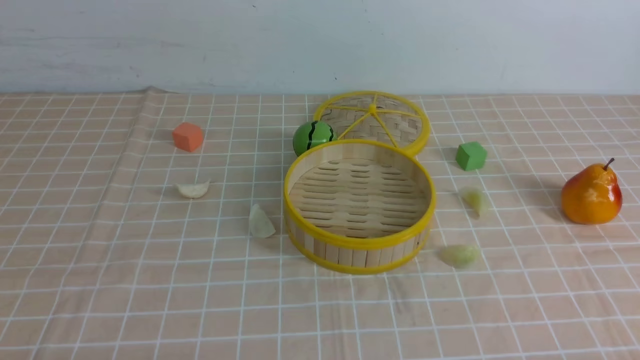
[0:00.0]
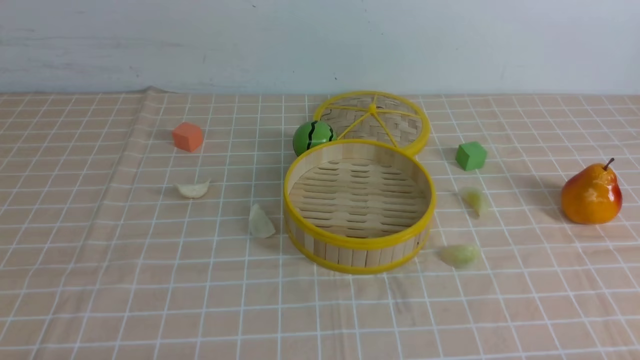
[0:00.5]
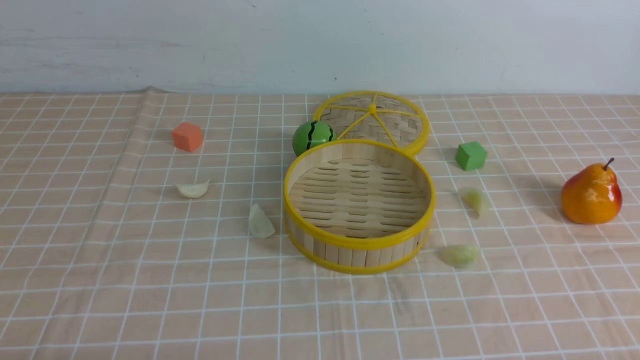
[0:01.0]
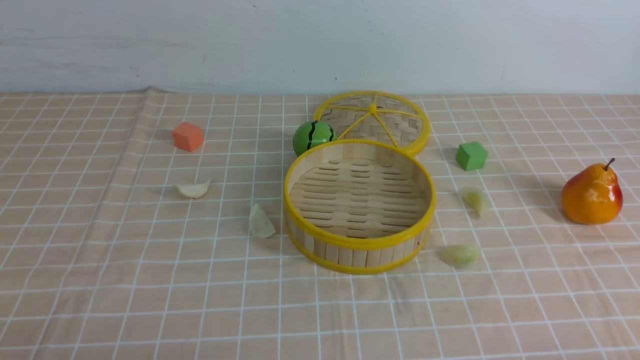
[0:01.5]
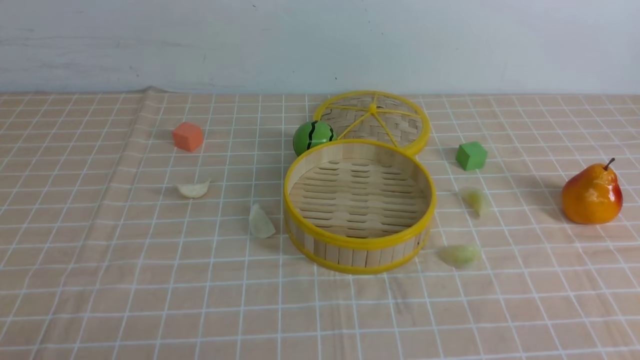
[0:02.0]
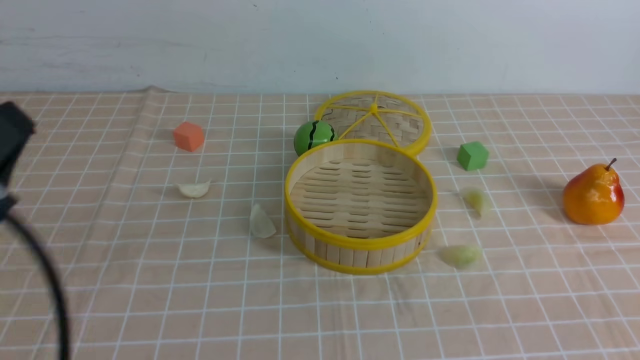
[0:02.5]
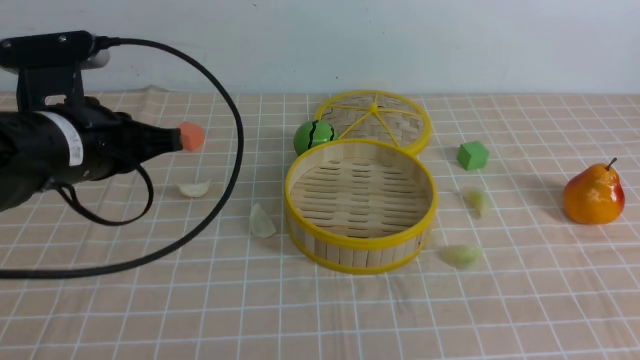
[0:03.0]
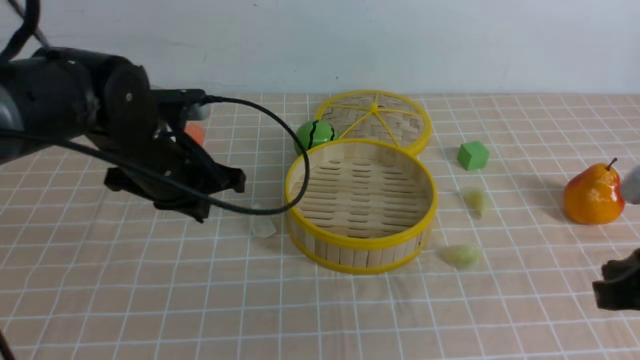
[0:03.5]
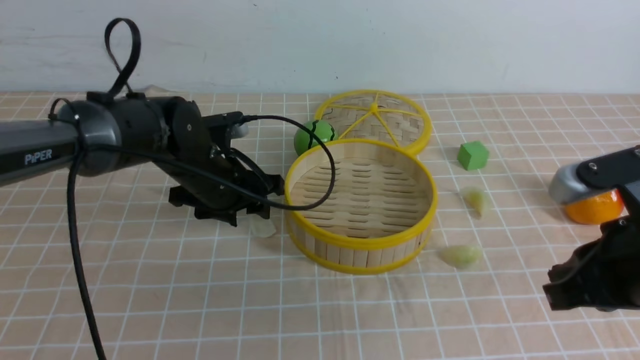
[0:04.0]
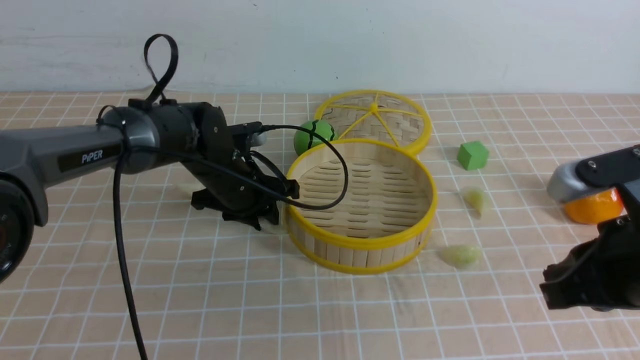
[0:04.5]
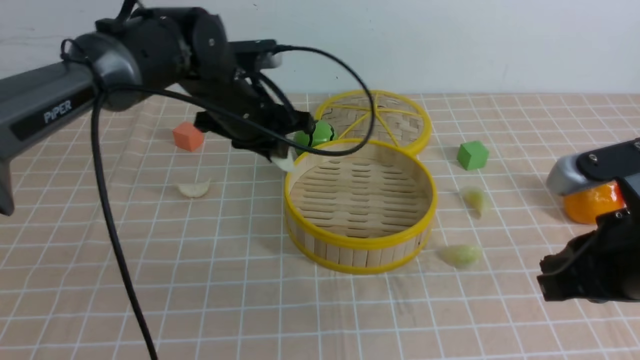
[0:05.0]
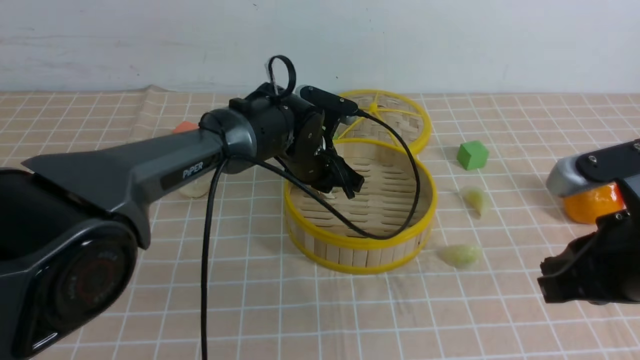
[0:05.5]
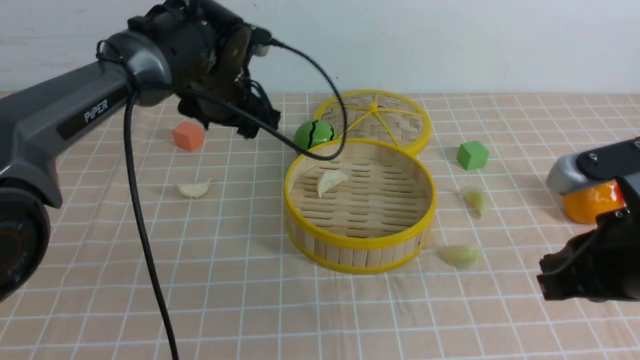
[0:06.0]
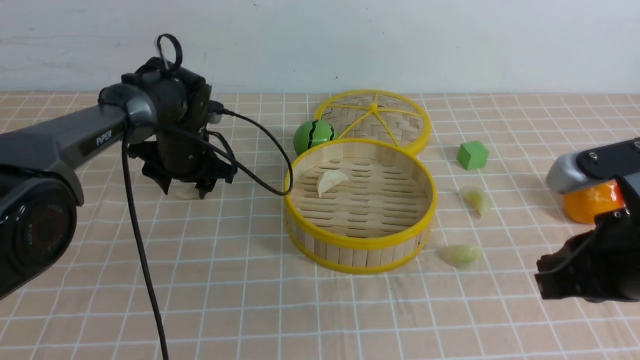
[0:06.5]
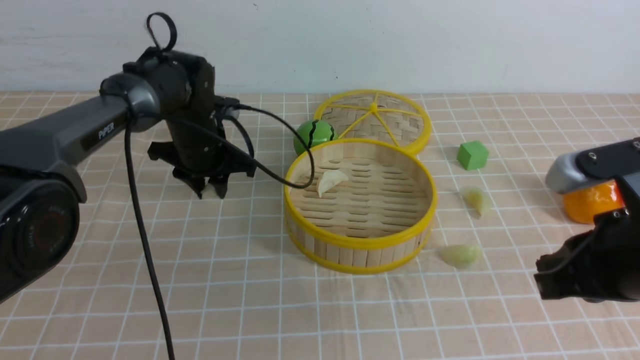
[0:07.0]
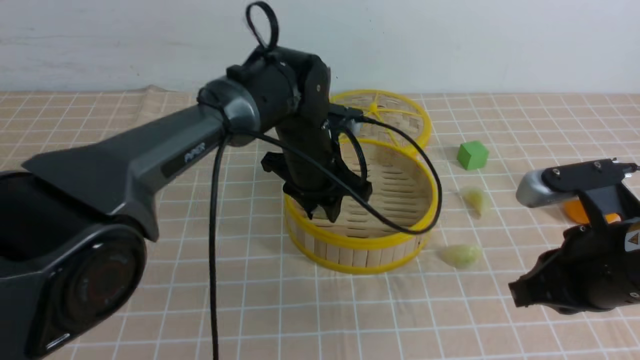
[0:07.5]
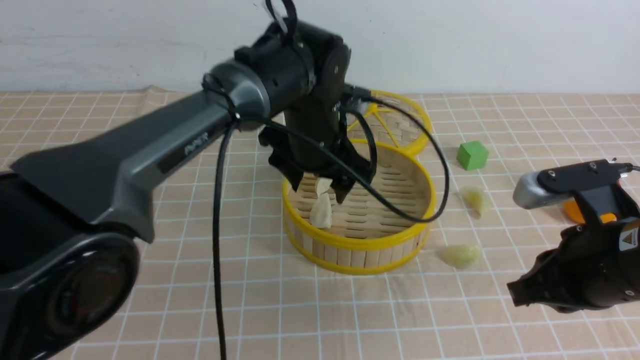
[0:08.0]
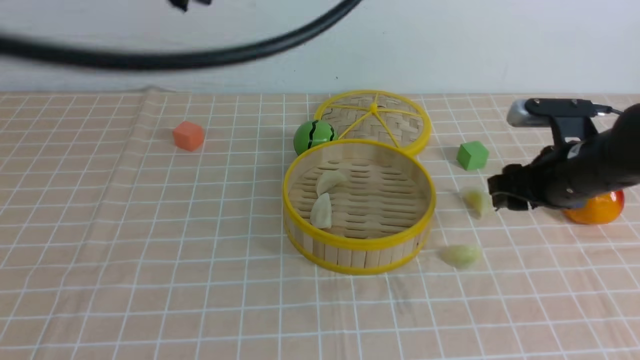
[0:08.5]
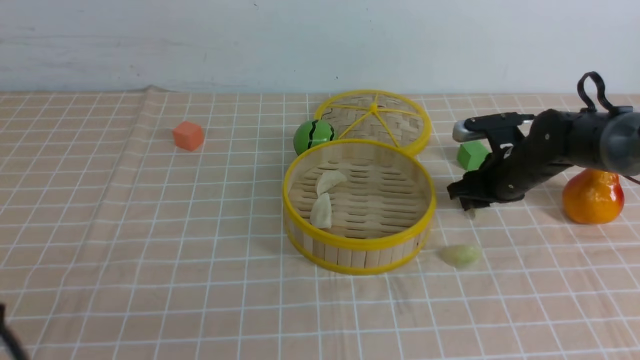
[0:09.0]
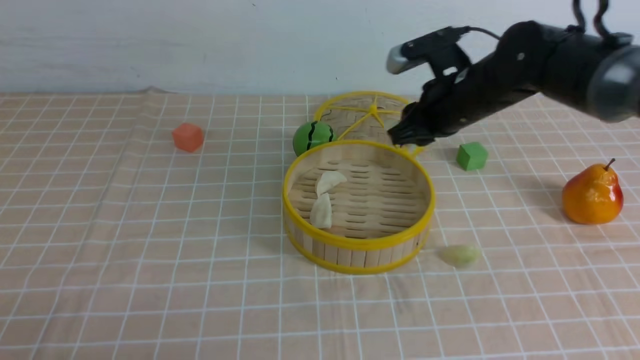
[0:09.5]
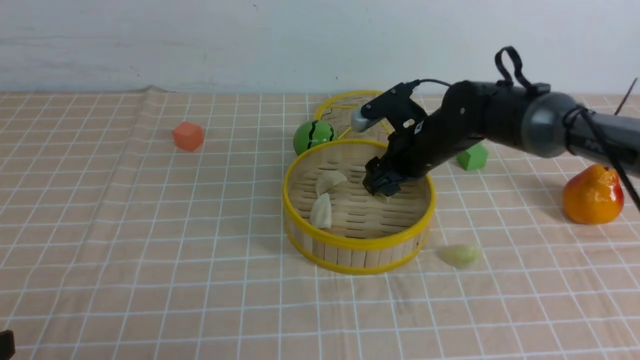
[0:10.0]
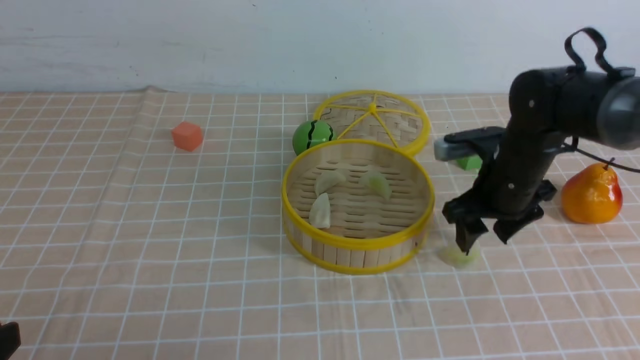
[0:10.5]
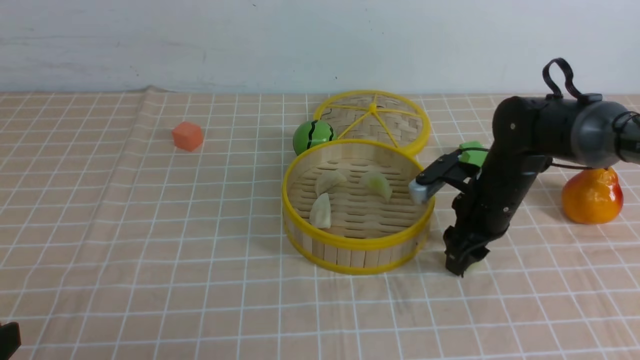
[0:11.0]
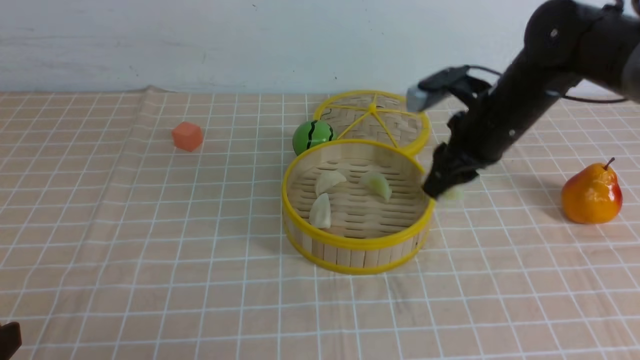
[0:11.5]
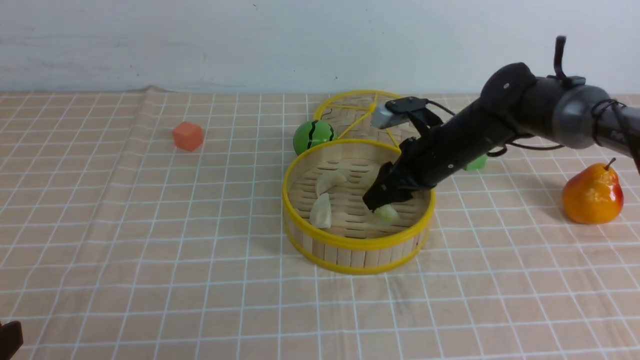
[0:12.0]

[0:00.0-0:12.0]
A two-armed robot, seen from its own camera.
Task of the whole recording: put the dumplings into the steamer on the table with the brown tablecloth.
Step, 0:00.0 to 0:04.5: use the left arm to grab a dumpling.
Step, 0:05.0 to 0:05.5: use the left arm to put the dumpling into the steamer.
Step, 0:06.0 to 0:06.5: use the left arm to grab a dumpling.
Step, 0:07.0 to 0:07.5: use the left arm to put the dumpling into the steamer.
Step, 0:08.5 to 0:09.0: use the right arm to grab a dumpling.
Step, 0:09.5 to 0:10.0: use the right arm to put the dumpling into the steamer.
Step, 0:10.5 to 0:11.0: use the right arm to grab a dumpling.
0:02.0 to 0:04.0: The left gripper travels forward by roughly 35 cm, and opens up; the right gripper travels forward by roughly 15 cm, and closes up.
0:04.0 to 0:06.0: The left gripper moves upward and forward, about 10 cm, reaches approximately 10 cm to the right, then returns, and closes, then opens again.
0:06.0 to 0:08.0: The left gripper heads to the right, backward and upward, covering roughly 15 cm, and closes and opens again.
0:08.0 to 0:10.0: The left gripper heads backward and to the left, covering roughly 40 cm, and closes. The right gripper shifts roughly 25 cm forward and to the left, and opens up.

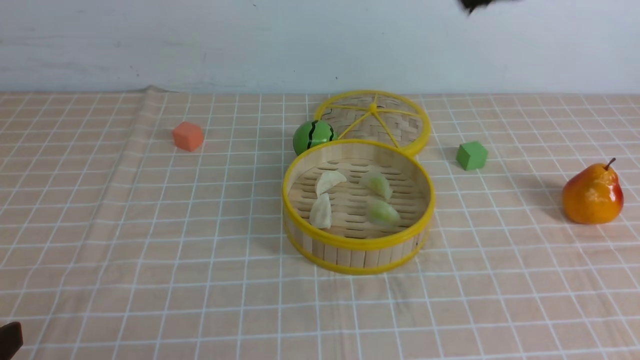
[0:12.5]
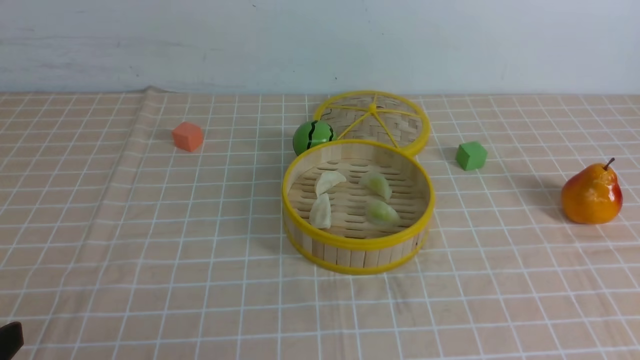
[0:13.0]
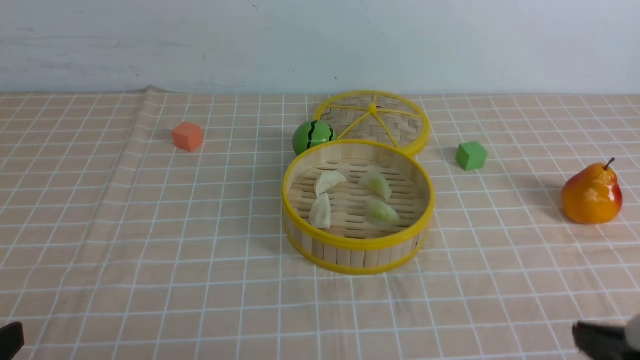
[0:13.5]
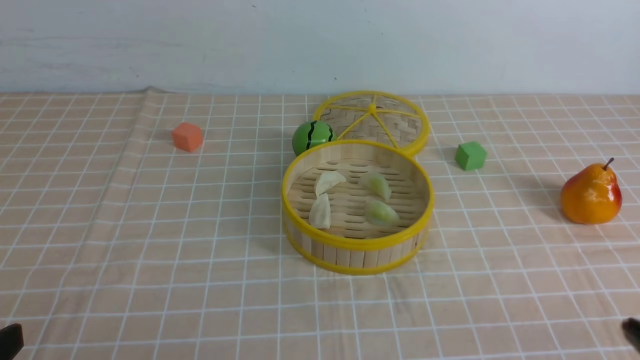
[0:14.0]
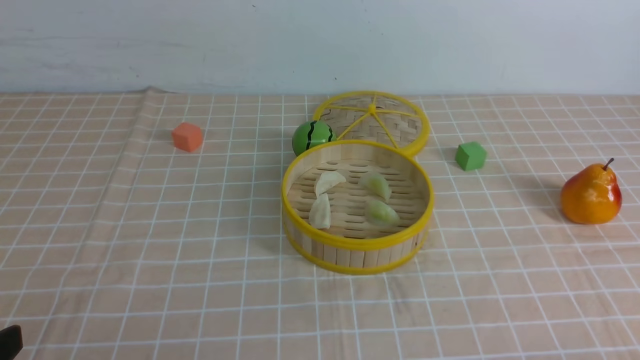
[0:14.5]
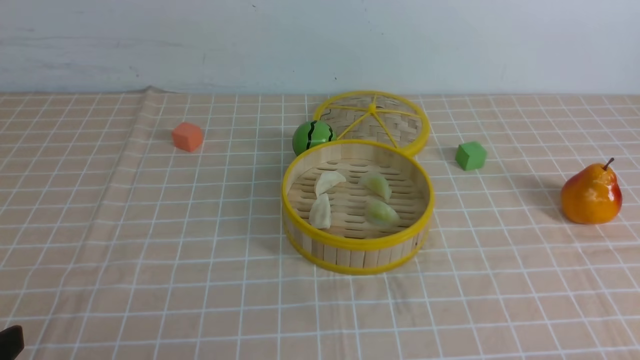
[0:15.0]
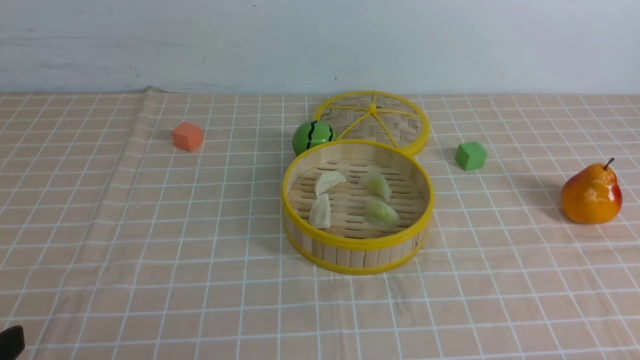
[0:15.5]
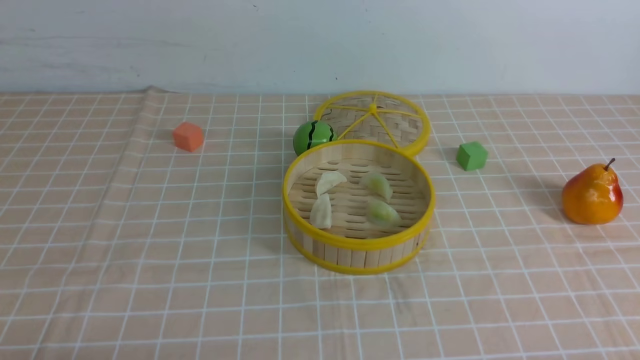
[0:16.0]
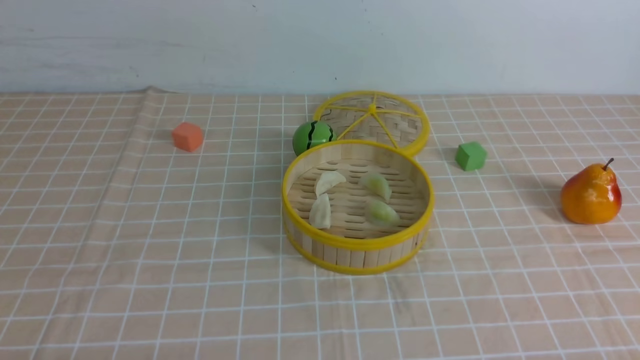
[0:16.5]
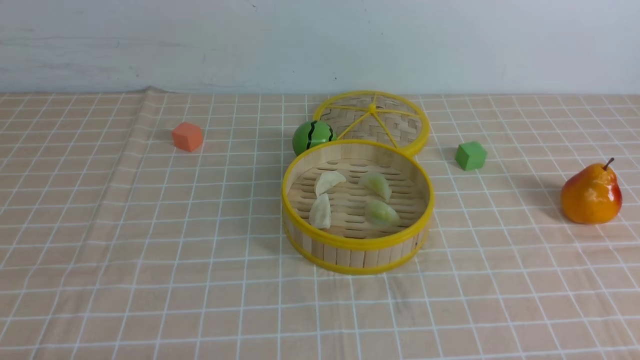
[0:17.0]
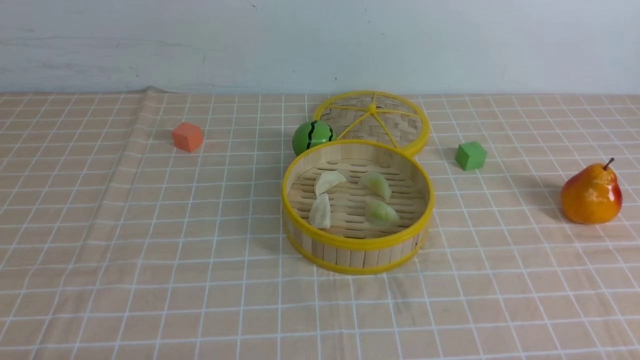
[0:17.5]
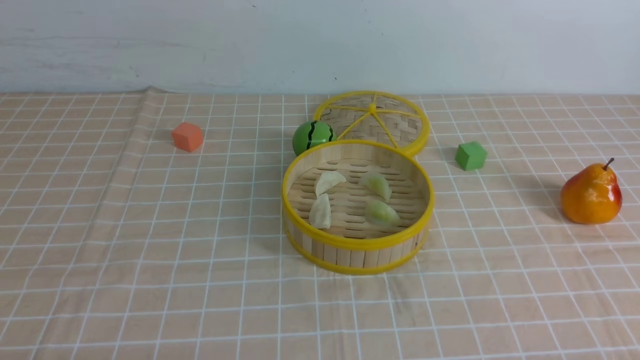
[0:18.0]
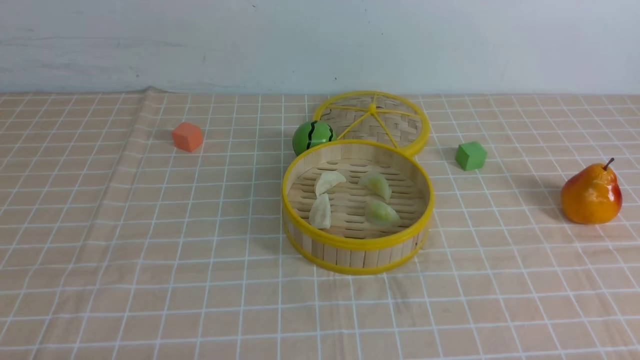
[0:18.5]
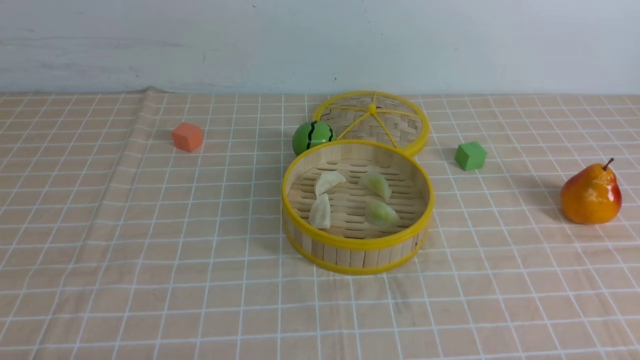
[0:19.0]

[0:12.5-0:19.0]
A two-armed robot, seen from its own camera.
Task of the whole recording: put the dumplings into the steamer on the table with the brown tablecloth.
0:17.0 to 0:19.0: Both grippers stay about where they are.
